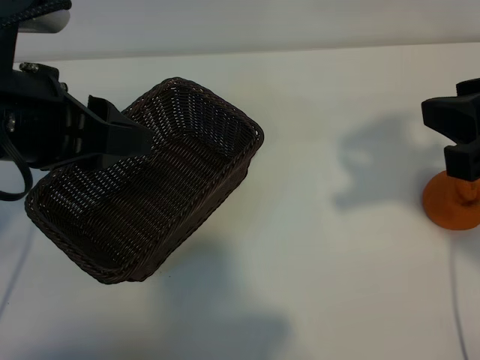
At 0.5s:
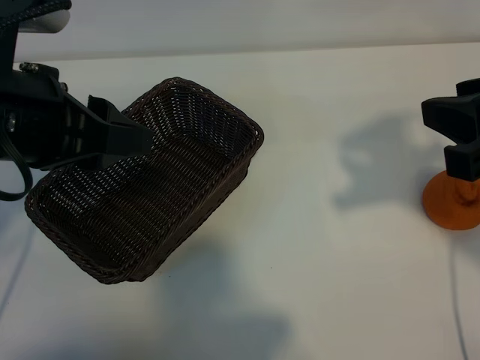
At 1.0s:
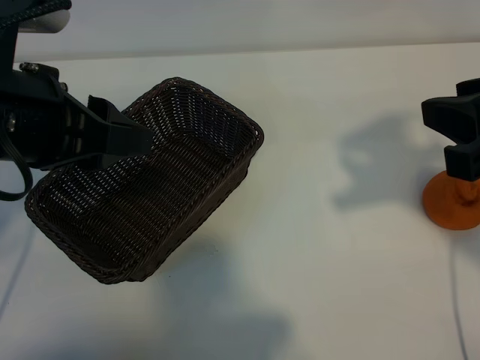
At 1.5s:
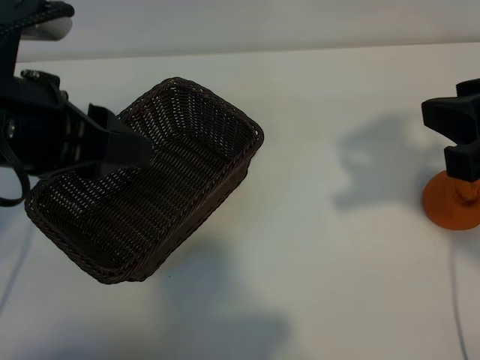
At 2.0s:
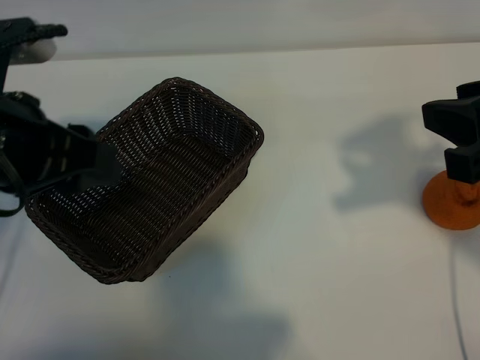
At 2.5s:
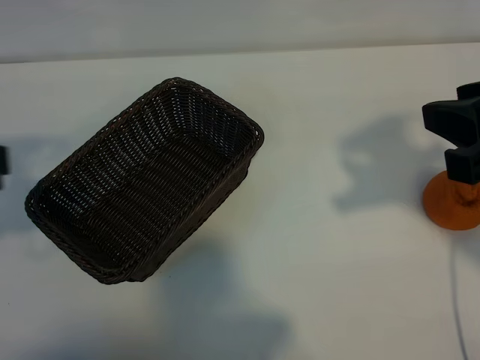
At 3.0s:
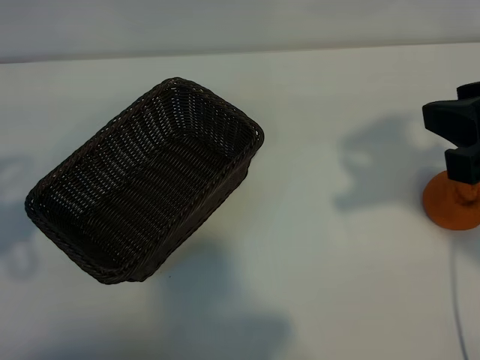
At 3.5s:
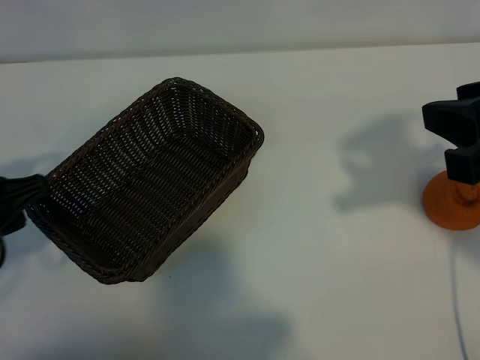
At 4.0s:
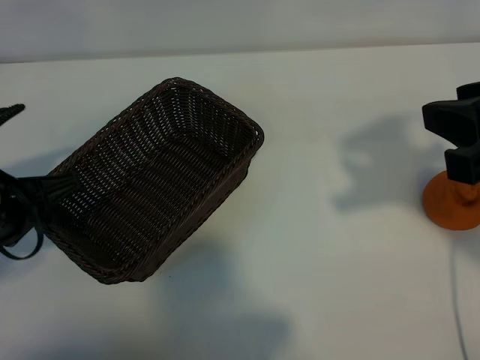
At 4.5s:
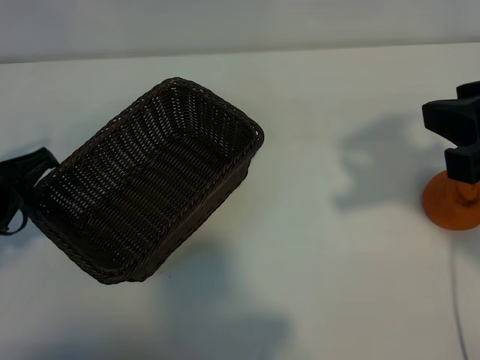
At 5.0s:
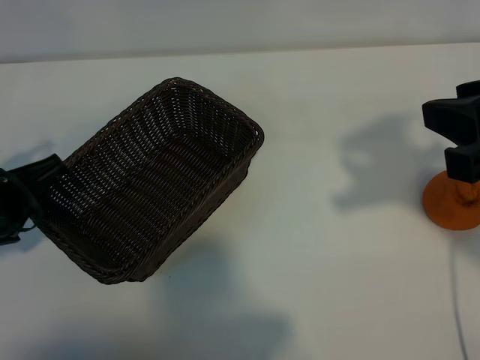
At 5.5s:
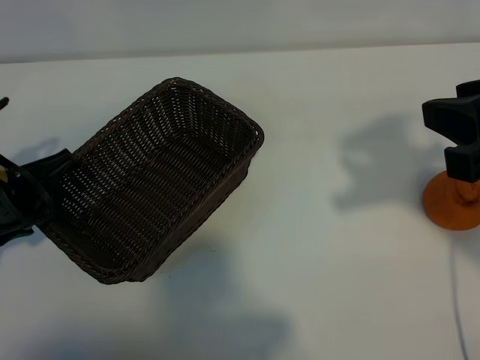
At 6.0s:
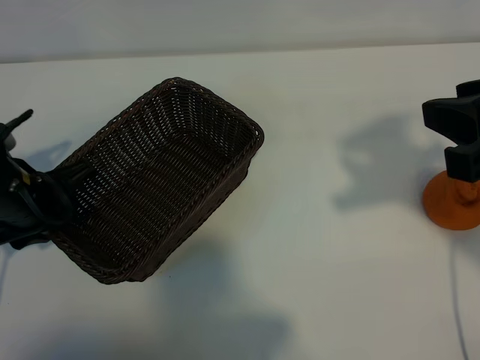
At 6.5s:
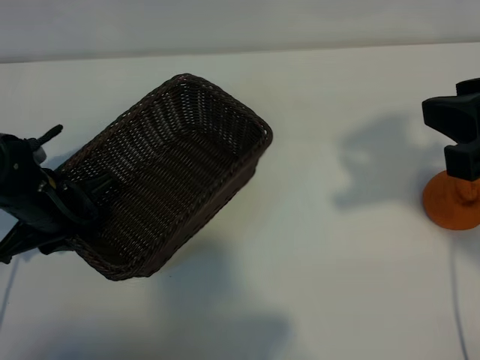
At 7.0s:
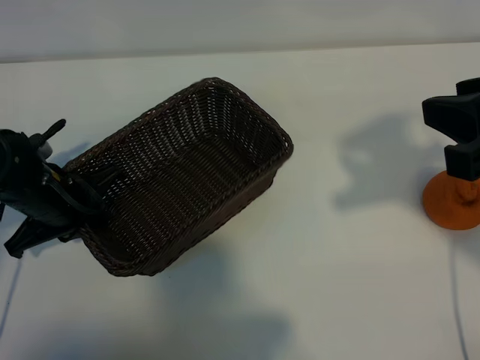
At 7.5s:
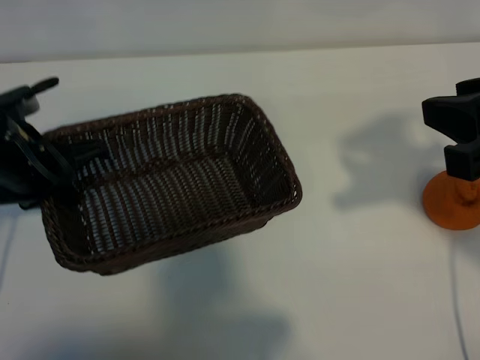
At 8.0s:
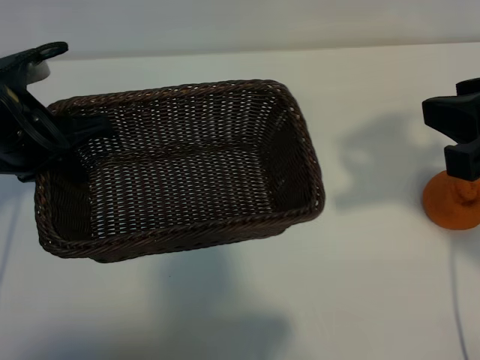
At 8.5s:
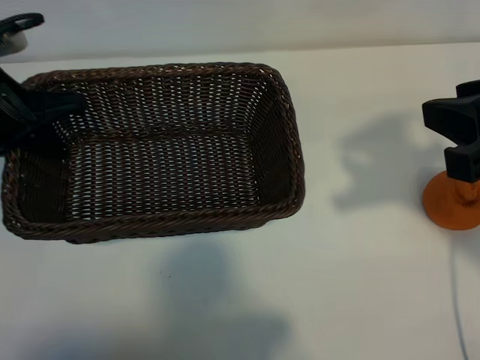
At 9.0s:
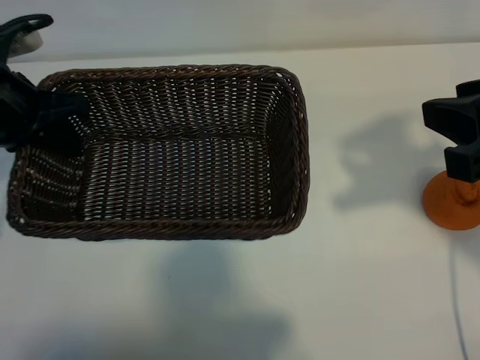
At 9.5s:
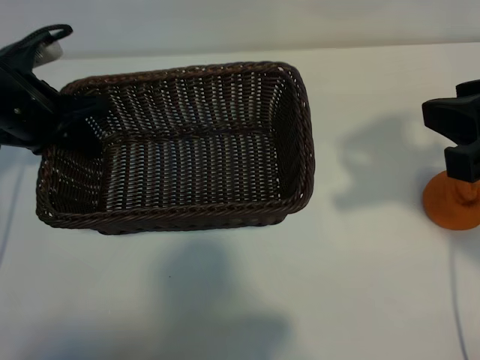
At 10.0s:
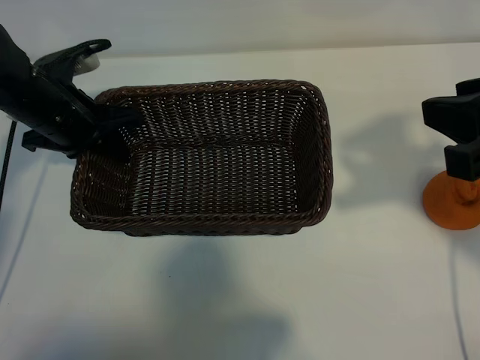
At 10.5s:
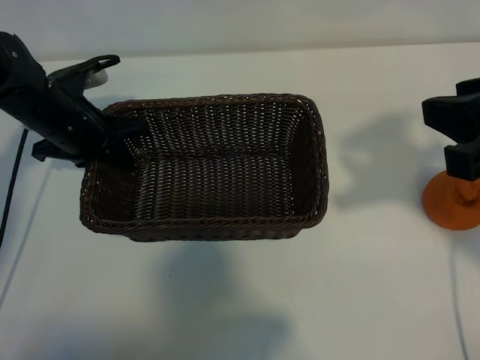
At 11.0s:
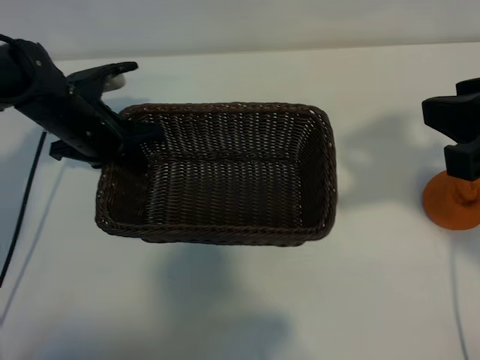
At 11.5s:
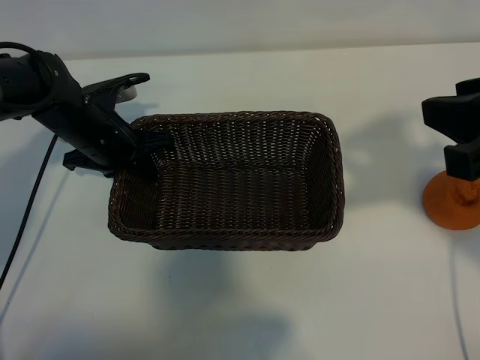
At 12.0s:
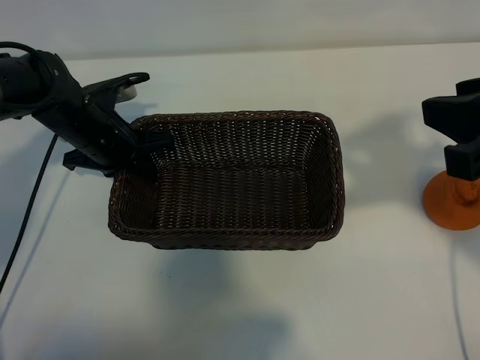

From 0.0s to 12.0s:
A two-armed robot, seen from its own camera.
Task of the whole recording: pick up the orange and put it into the basket.
Step, from 1.5s to 6.5s: Grasp the basket with left gripper.

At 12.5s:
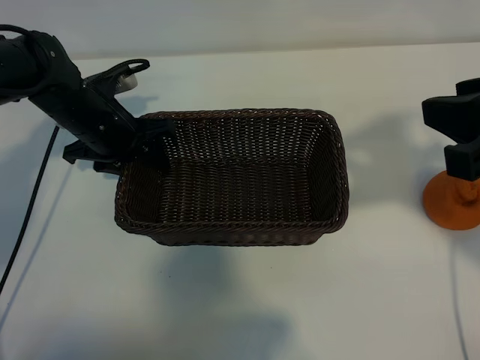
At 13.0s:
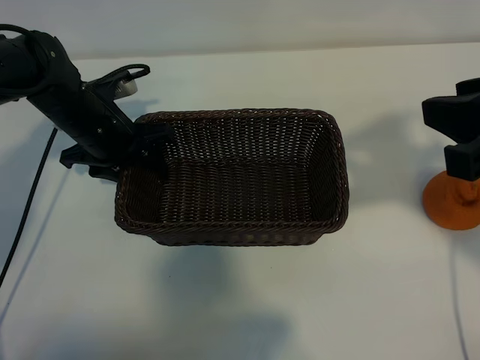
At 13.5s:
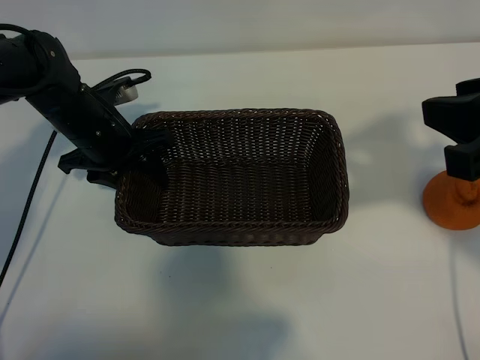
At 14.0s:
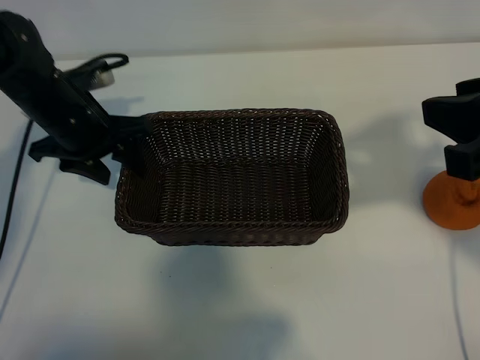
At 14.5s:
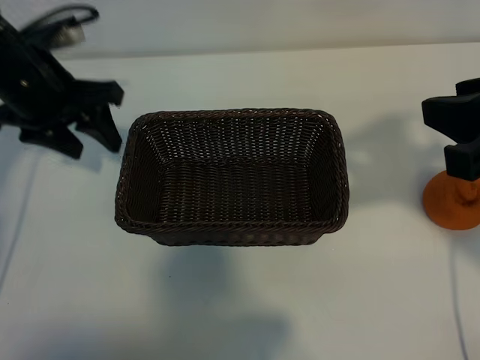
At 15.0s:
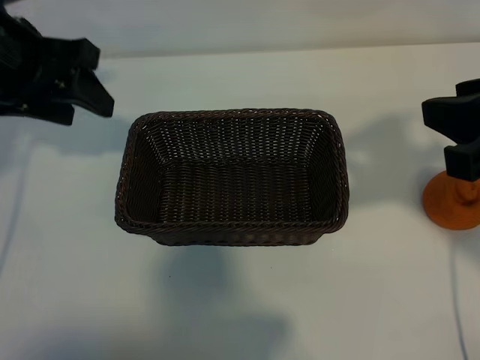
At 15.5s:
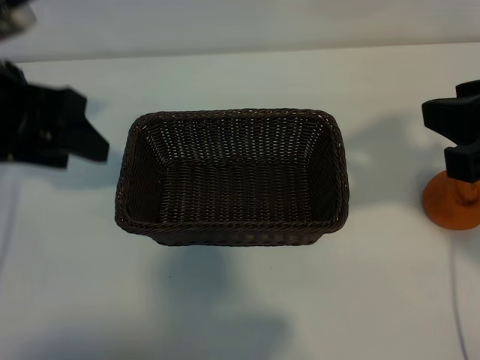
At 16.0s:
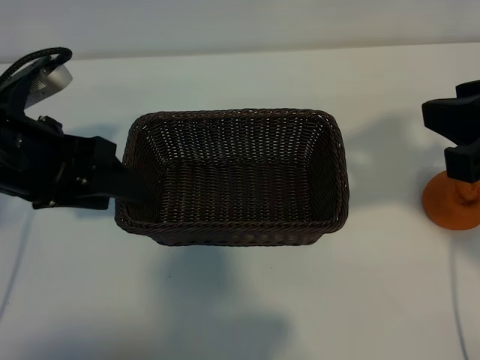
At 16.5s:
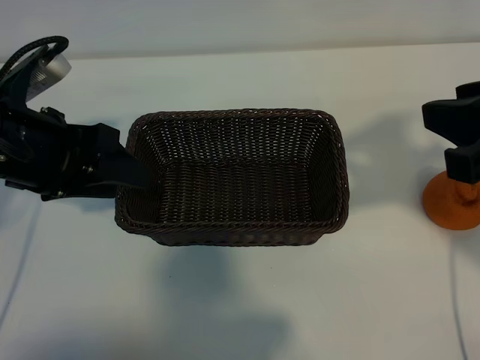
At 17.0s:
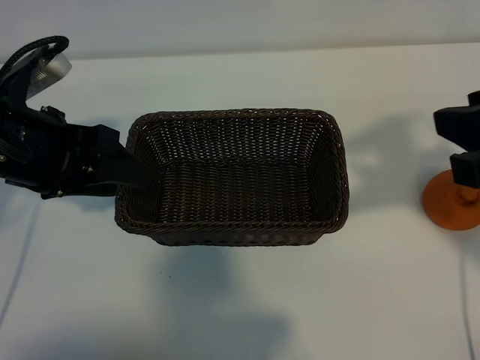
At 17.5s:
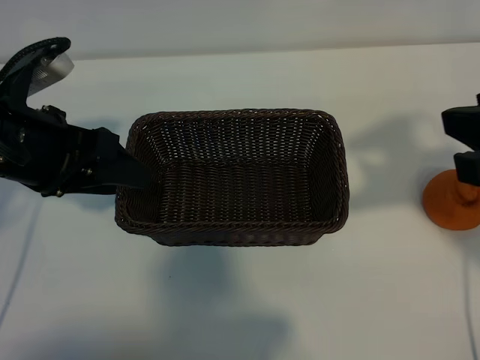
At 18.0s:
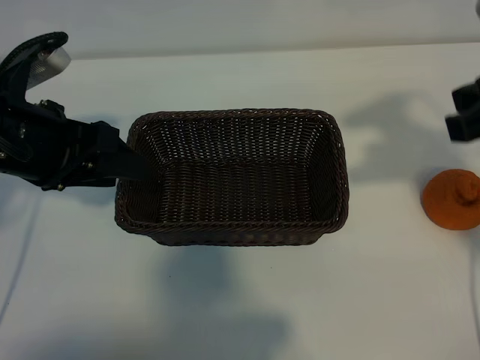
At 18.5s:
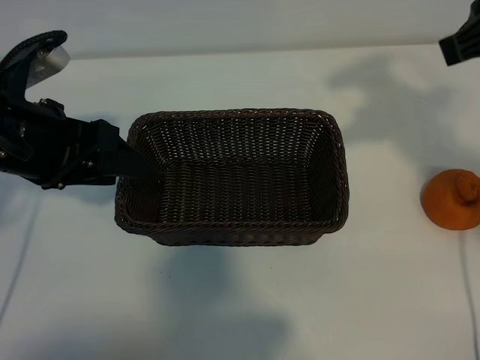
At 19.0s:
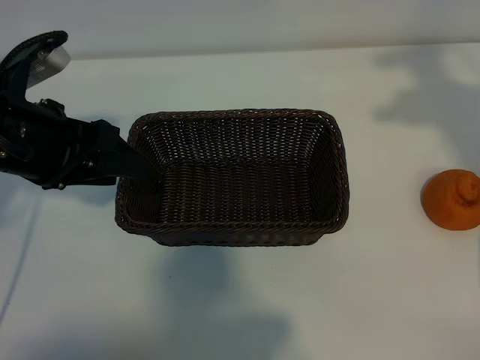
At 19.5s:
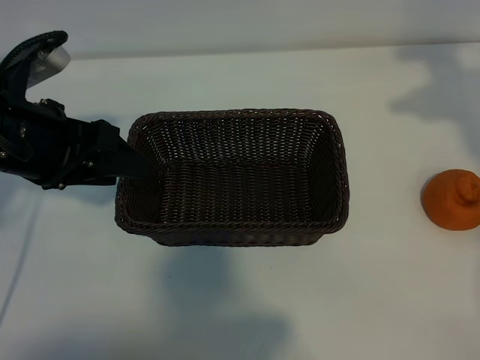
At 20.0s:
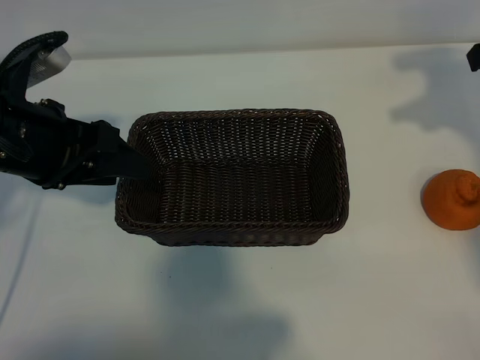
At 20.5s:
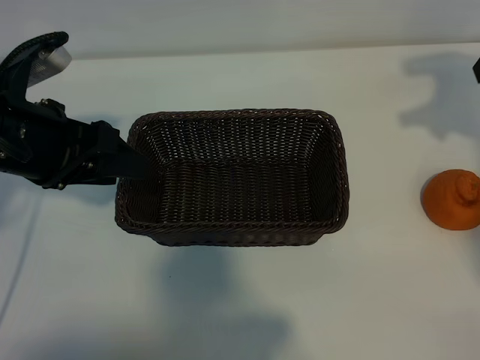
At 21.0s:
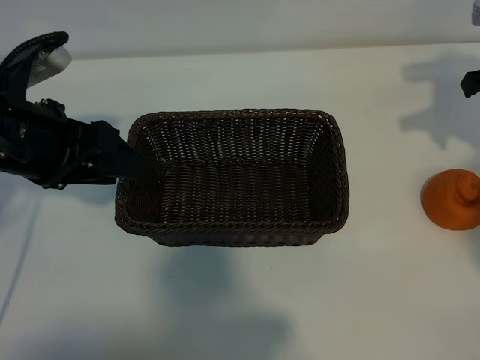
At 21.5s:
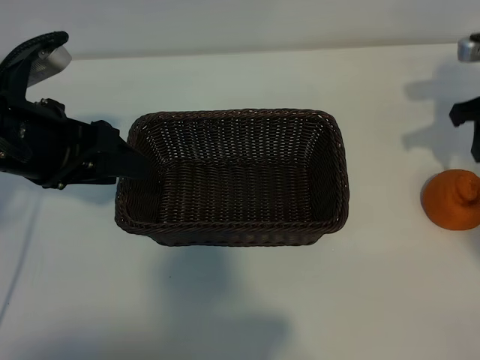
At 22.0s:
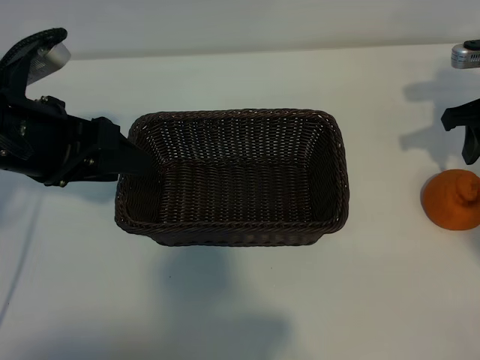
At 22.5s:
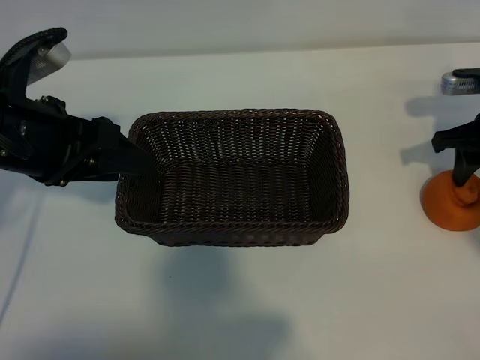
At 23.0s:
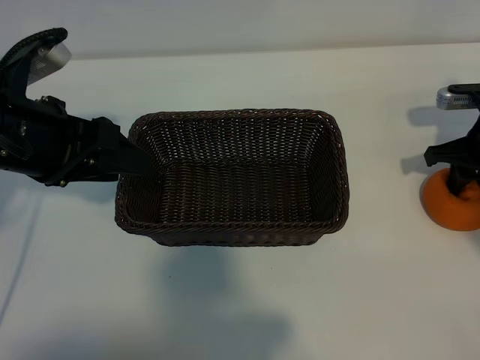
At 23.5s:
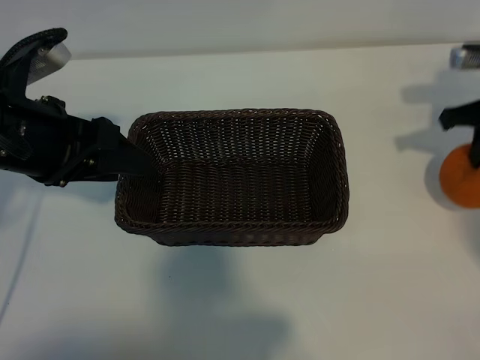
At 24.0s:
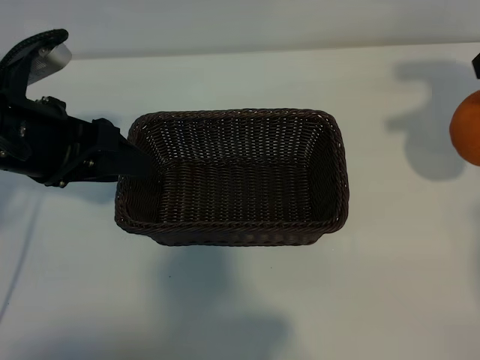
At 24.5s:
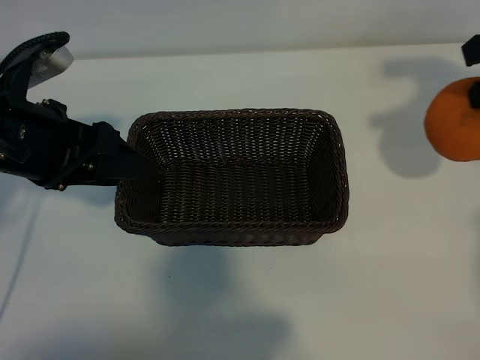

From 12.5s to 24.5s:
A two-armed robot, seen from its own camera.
Task of the whole recording: pick up the orange and put it into the basket.
Step, from 12.5s to 23.0s: Grasp the orange with right gripper.

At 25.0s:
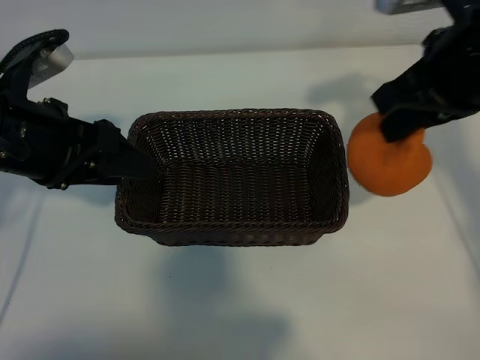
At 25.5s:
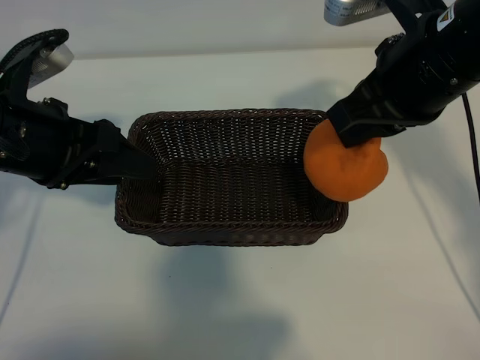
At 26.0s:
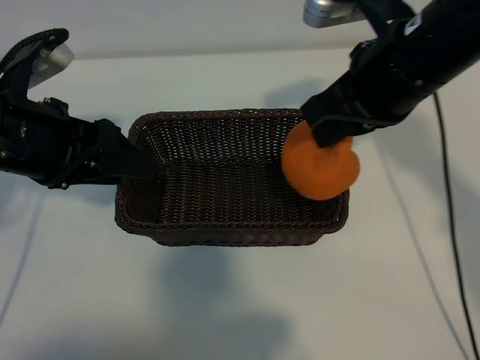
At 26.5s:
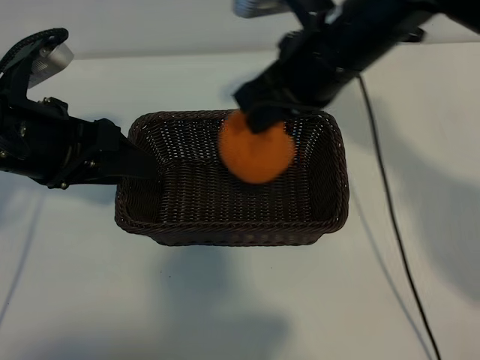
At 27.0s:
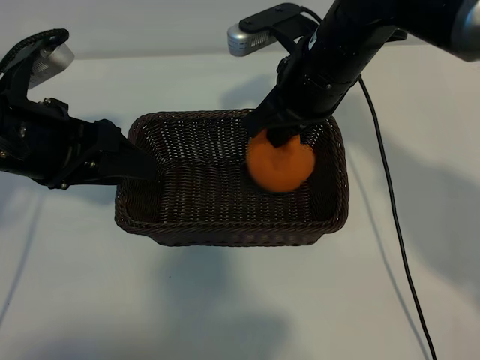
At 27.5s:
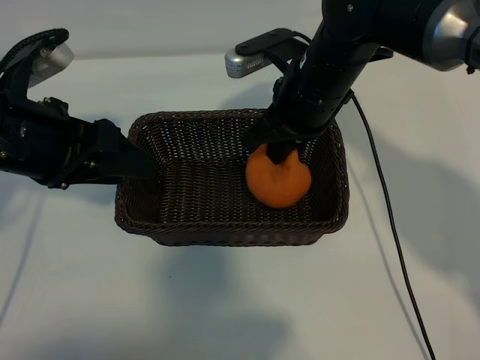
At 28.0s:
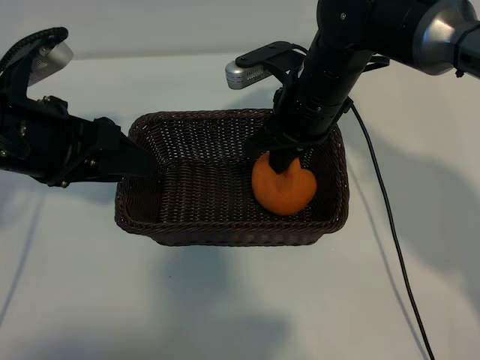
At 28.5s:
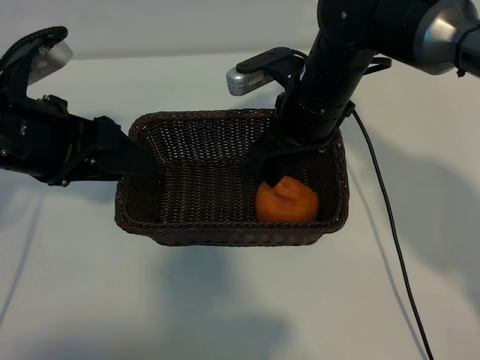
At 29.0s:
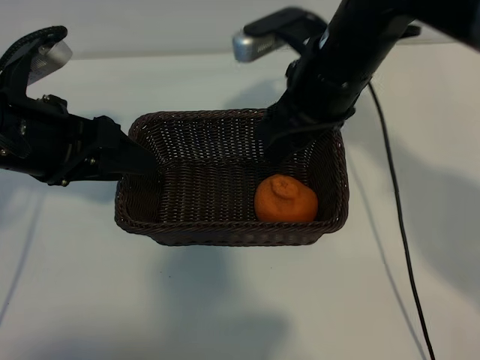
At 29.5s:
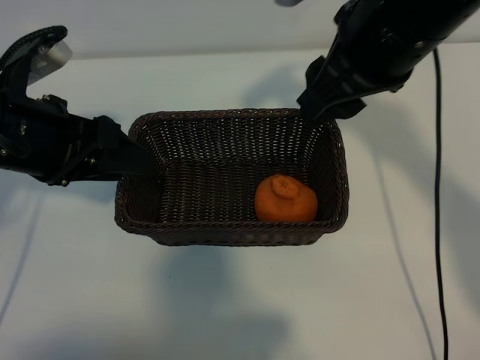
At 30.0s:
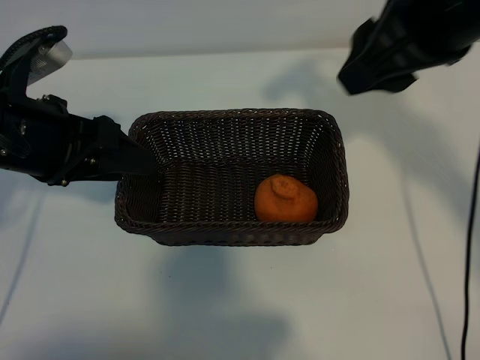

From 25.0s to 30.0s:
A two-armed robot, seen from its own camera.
Task of the whole recording: pick up the orange and put it into the basket.
Step, from 25.0s to 28.0s: Place the orange in the basket with right gripper.
